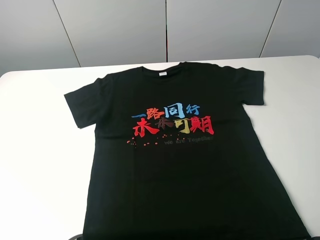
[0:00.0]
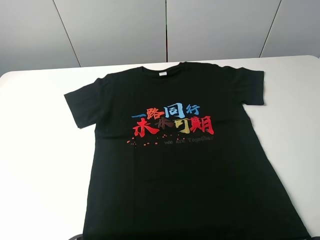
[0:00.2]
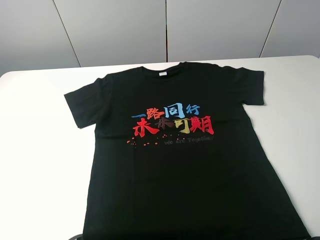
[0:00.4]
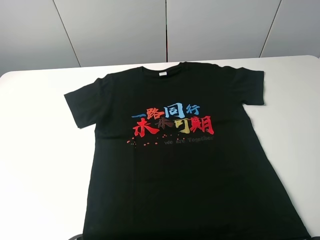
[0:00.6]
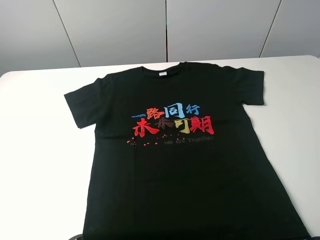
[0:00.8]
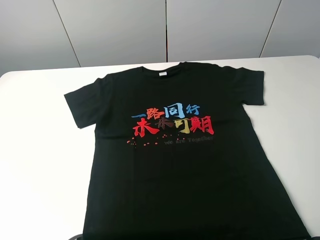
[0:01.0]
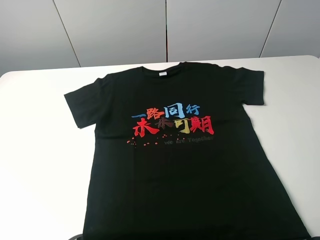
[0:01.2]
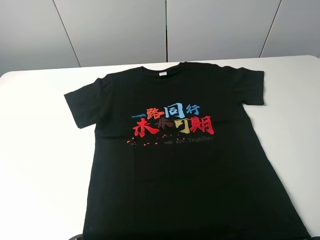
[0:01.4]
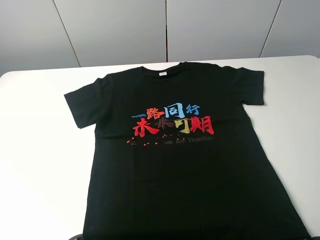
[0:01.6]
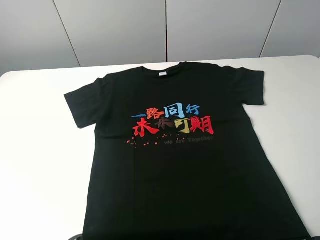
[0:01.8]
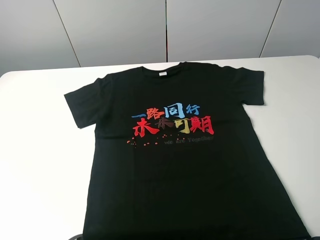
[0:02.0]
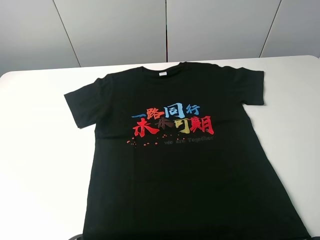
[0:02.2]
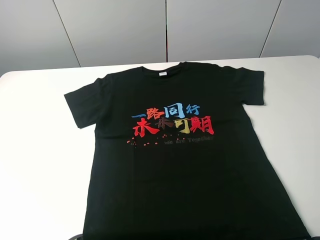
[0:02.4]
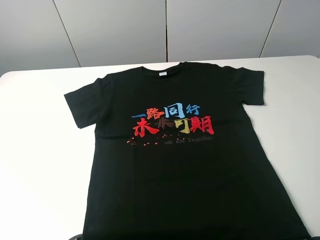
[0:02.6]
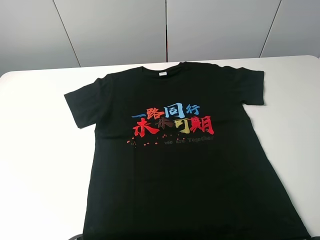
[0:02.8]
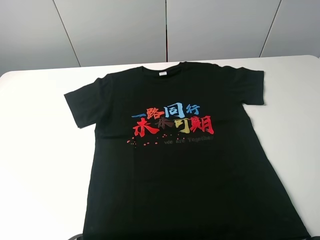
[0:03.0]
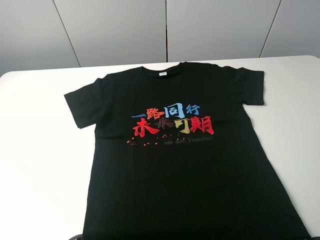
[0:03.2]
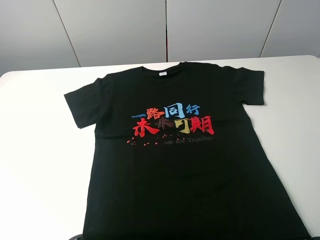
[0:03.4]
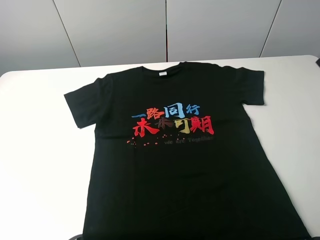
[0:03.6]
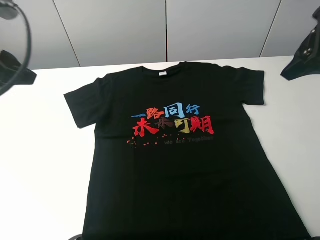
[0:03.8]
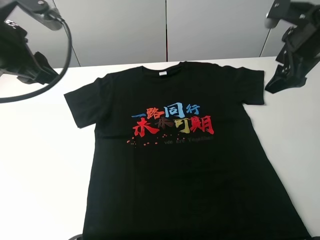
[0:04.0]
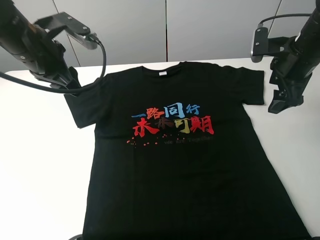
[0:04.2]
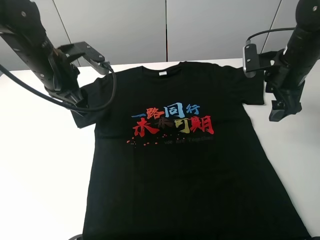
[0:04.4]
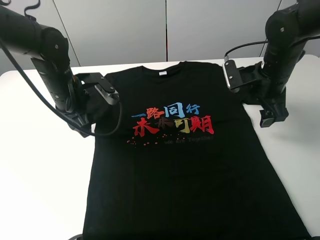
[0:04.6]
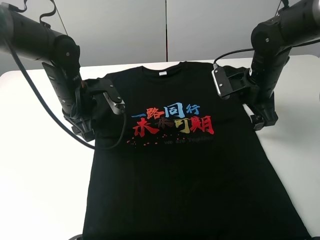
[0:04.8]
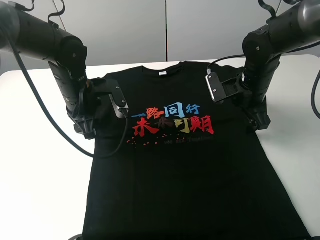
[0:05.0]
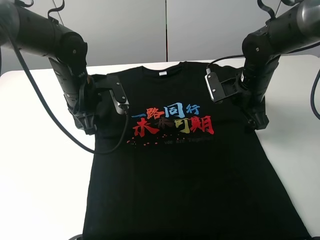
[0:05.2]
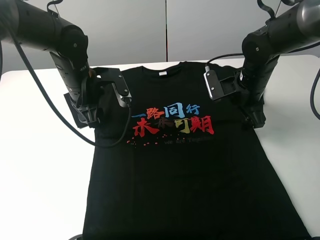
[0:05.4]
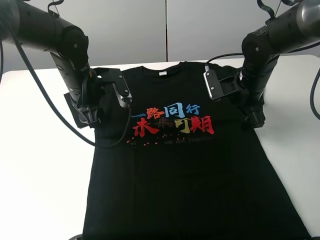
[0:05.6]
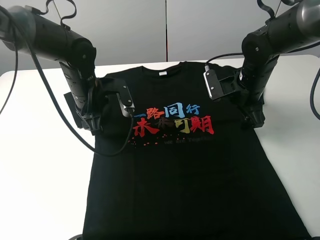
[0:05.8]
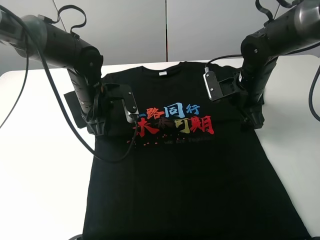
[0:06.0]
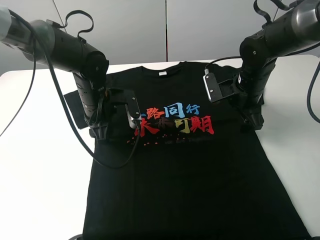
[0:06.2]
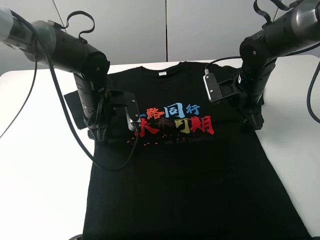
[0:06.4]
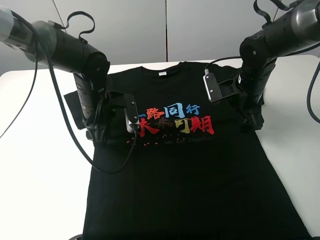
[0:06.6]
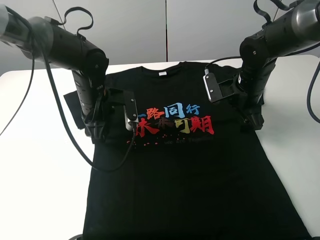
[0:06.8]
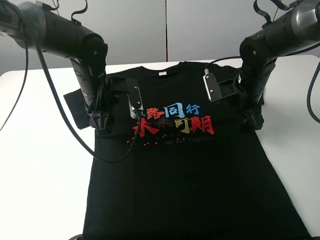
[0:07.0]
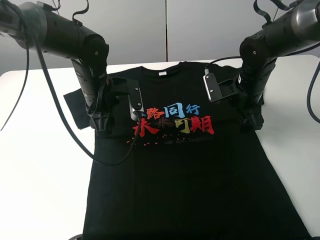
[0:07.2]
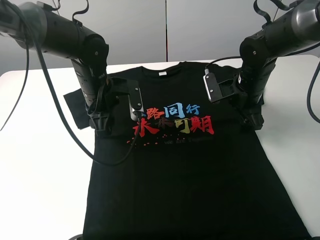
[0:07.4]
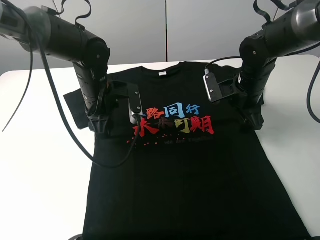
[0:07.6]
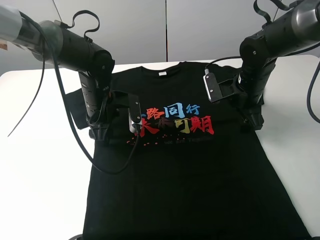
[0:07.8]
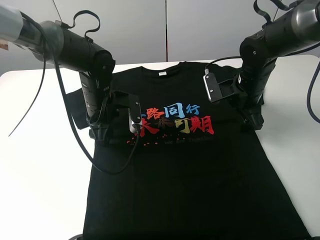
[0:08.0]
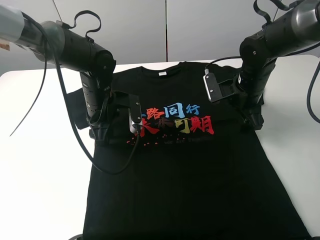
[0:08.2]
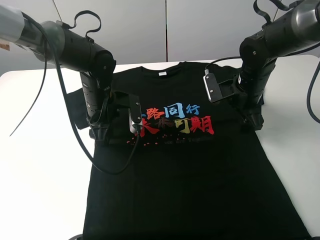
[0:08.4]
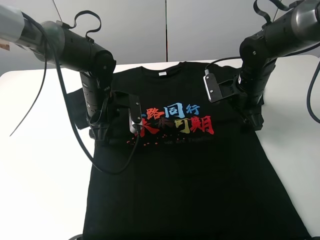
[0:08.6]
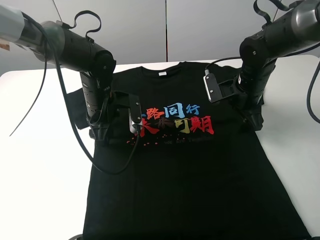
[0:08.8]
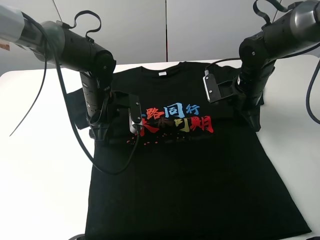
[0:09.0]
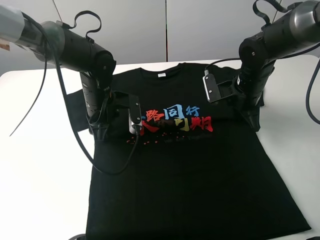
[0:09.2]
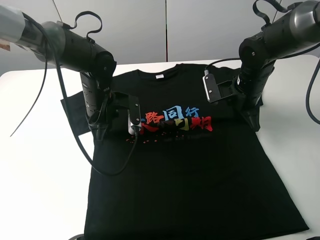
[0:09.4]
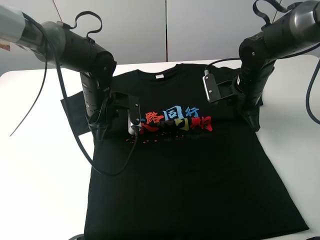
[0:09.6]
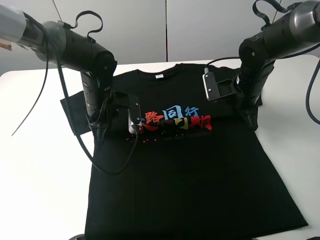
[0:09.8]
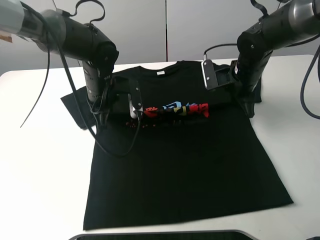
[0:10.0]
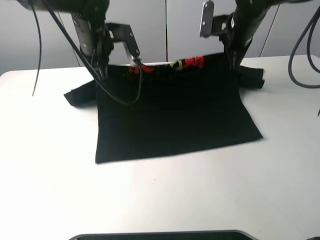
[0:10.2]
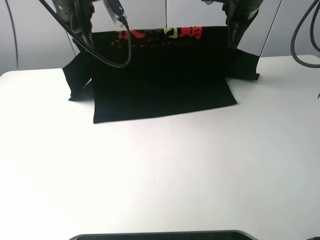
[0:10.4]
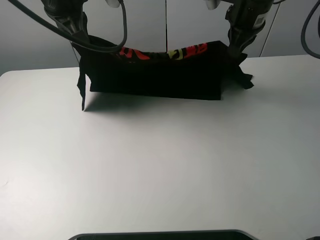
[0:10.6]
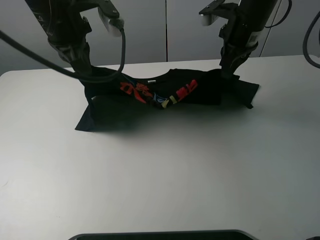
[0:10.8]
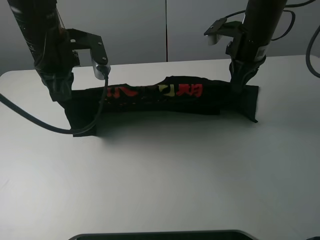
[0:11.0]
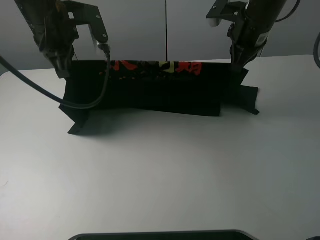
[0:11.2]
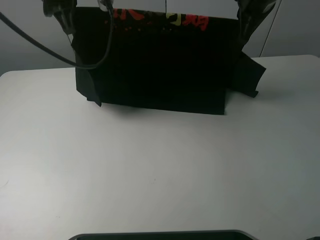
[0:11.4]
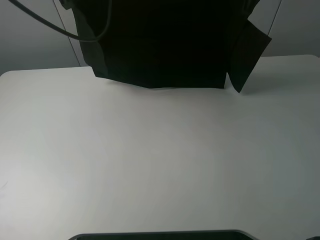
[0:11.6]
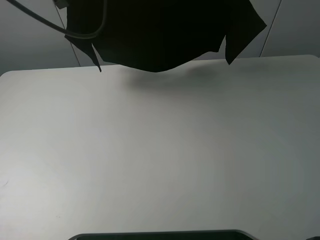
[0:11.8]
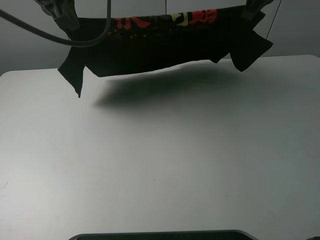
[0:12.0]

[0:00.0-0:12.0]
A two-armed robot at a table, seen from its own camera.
Task of the whole recording: fold the clothes on the table.
Step, 0:00.0 to 0:09.4: Lift the black T-shirt with the left gripper.
0:00.0 to 0:01.6: Neither gripper changes place.
0:03.0 to 0:04.4: The right gripper goes approximately 35 cm forward and downward; the left gripper moves forward, to the right and downward, about 35 cm.
0:04.4 to 0:06.0: The left gripper is displaced downward and to the right by some 10 cm, while the right gripper travels downward and to the left by approximately 10 cm.
0:06.0 to 0:07.6: The grippers move only a little.
0:07.6 to 0:09.0: The right gripper closes its fingers.
0:09.0 to 0:10.4: The two grippers go some 20 cm upward and forward. The left gripper closes.
0:10.4 to 0:12.0: The right gripper goes some 10 cm upward and backward. Meanwhile the left gripper heads backward and upward, covering roughly 10 cm.

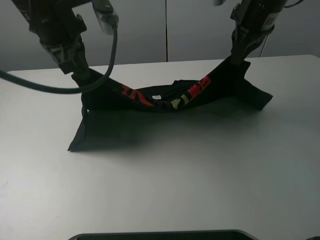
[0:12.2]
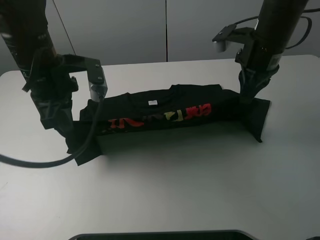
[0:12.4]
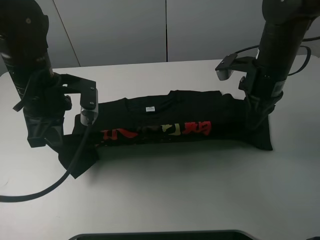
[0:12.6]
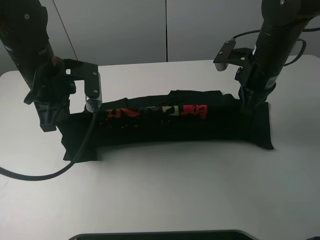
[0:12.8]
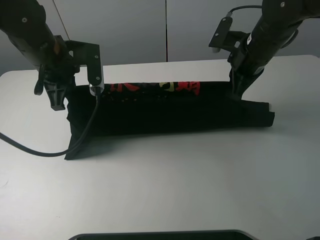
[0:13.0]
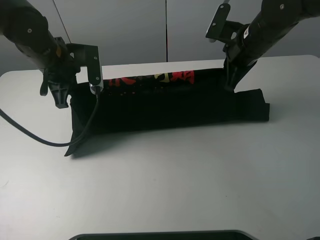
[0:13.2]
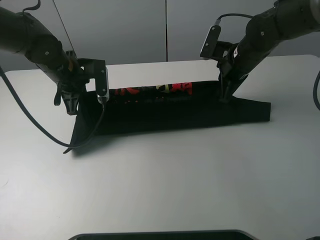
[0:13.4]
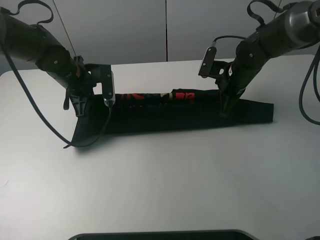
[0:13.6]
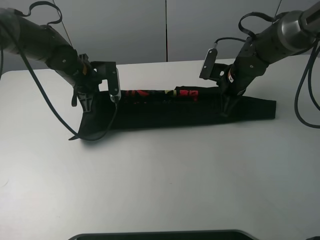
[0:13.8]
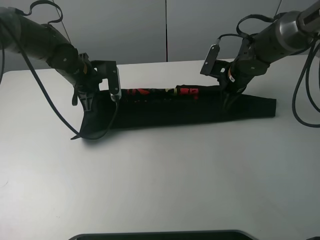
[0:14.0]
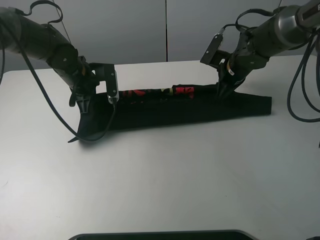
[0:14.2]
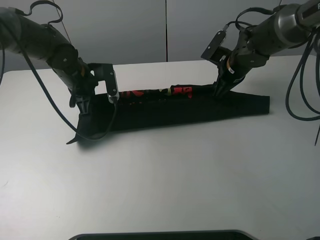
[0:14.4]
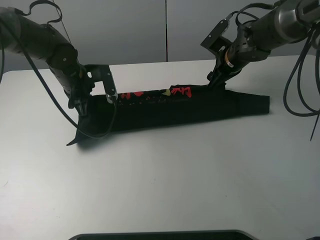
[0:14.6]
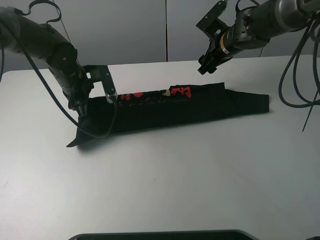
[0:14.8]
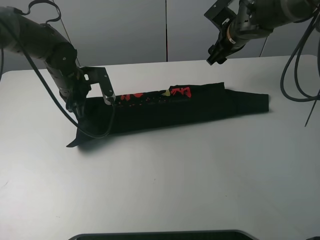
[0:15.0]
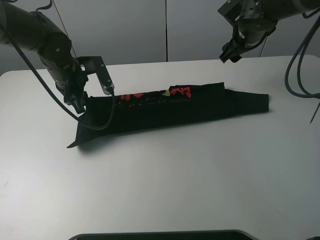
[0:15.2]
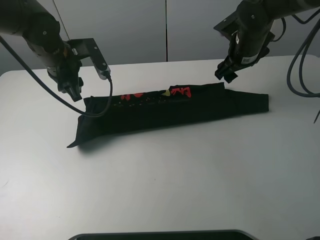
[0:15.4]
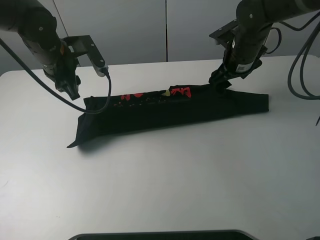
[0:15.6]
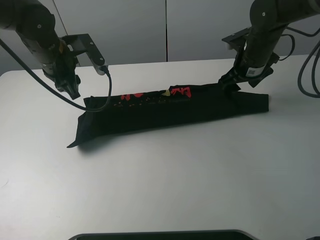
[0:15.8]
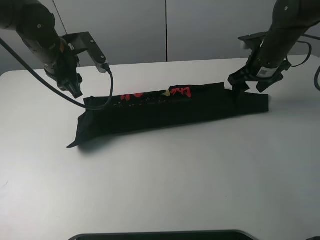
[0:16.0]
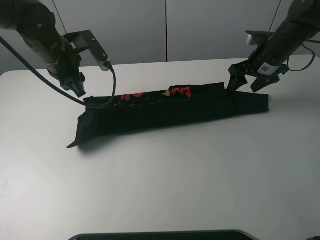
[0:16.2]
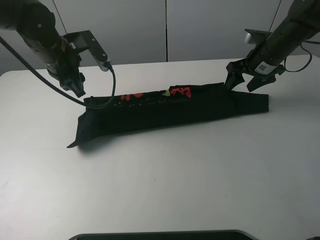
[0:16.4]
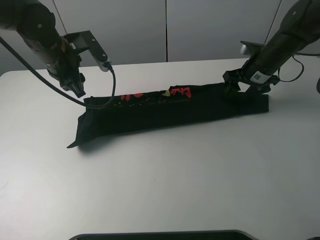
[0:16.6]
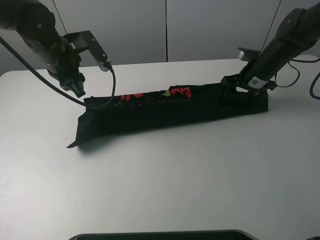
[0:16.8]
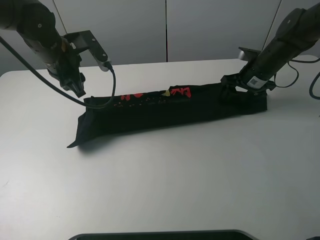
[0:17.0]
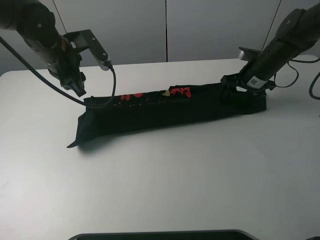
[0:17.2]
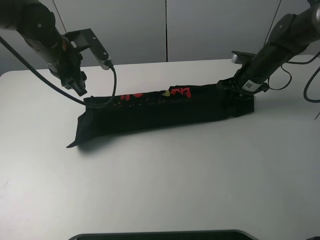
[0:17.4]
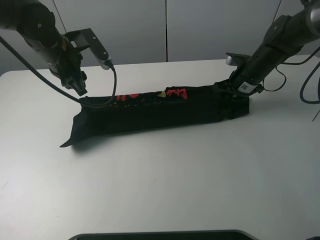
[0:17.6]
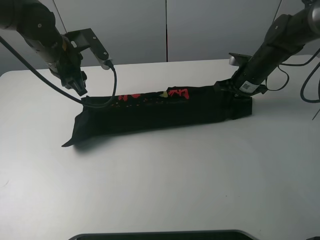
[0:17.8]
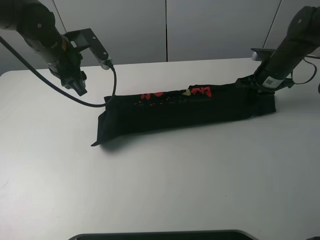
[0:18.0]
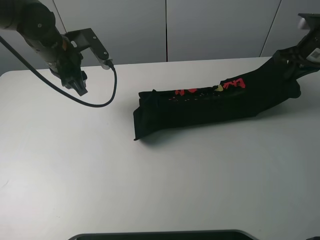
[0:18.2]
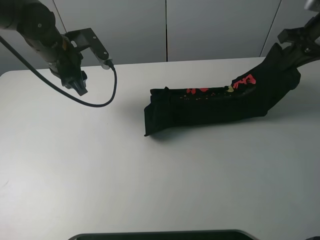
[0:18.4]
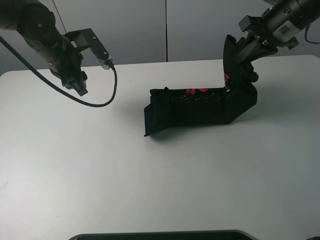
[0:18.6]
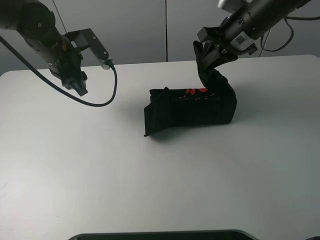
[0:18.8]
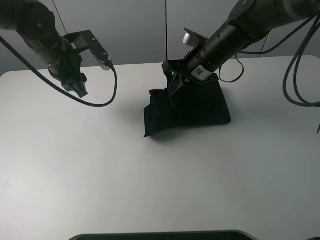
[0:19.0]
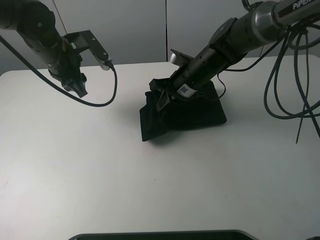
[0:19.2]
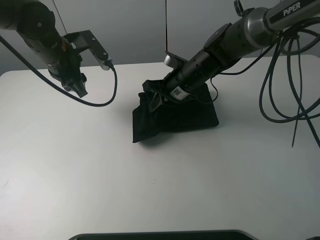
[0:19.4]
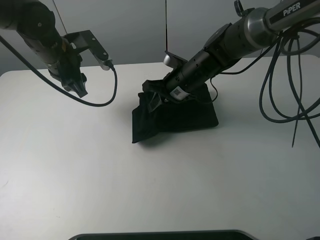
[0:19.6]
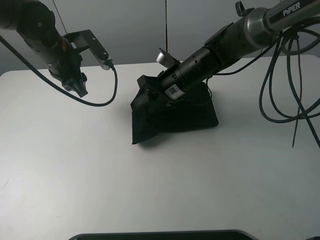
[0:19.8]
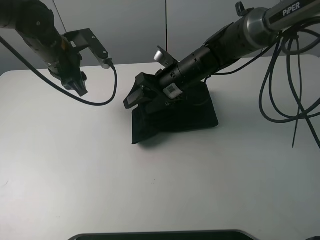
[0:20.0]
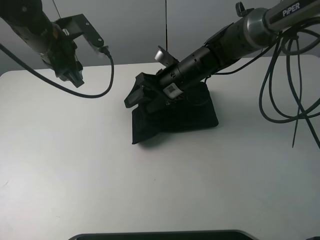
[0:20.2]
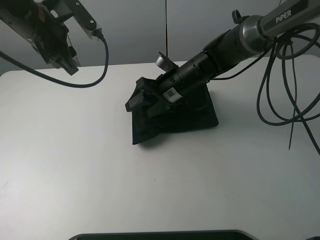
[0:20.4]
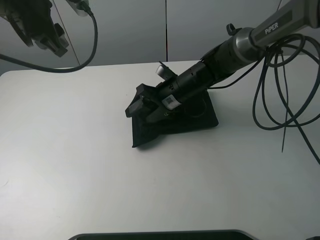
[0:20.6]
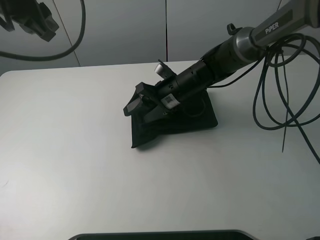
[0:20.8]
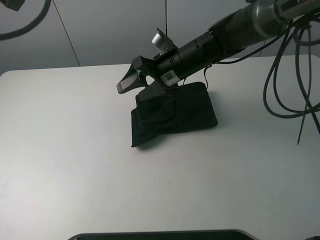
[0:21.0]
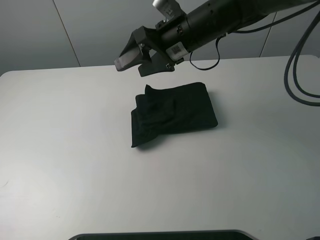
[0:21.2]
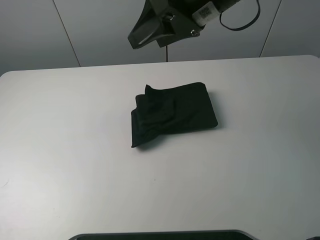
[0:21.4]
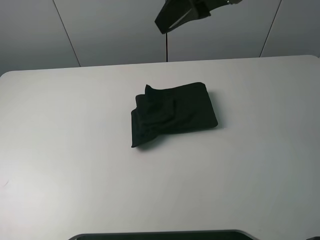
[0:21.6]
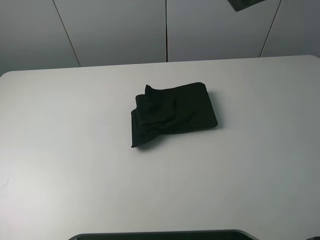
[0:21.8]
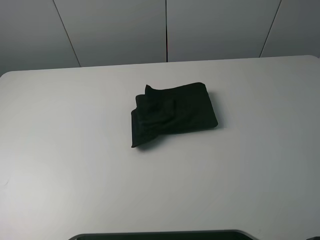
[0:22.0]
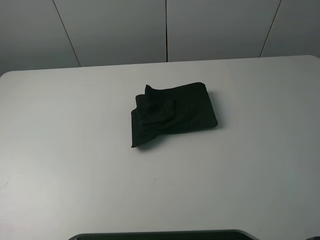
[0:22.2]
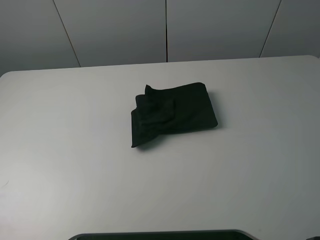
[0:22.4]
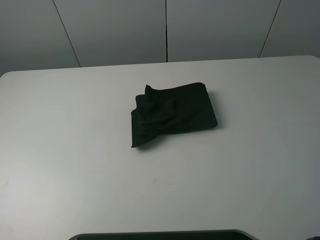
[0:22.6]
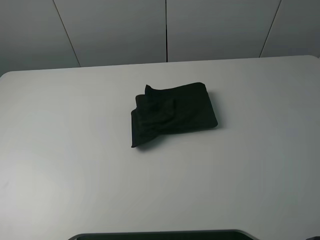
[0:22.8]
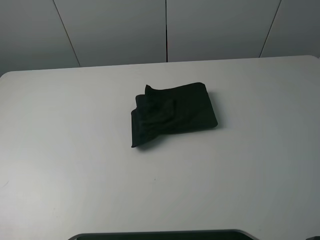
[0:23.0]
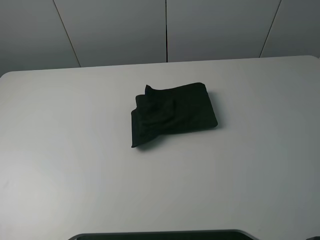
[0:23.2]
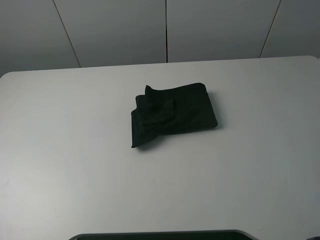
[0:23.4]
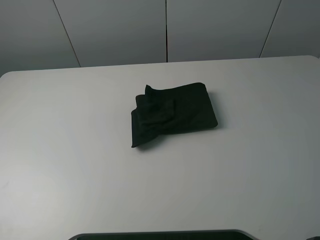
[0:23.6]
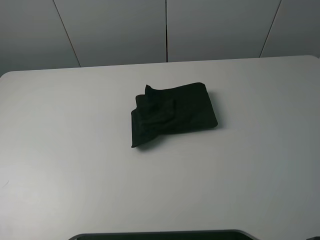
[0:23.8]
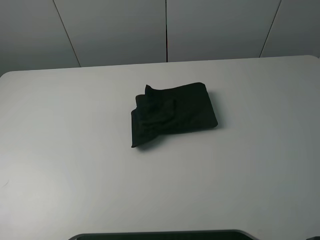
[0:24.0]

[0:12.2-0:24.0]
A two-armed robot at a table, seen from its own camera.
Task of the whole recording: fold the clothes on the table.
Step, 0:12.2 to 0:15.2: Fold the black T-shirt downward with the left gripper.
Step, 0:15.4 to 0:17.6: Fold the black T-shirt downward with the right gripper.
Step, 0:17.8 to 0:20.0: Grasp the black T-shirt with the right gripper.
0:12.2 to 0:13.6: The left gripper moves downward and forward, approximately 15 cm; the right gripper travels downward by some 15 cm.
0:13.6 to 0:15.2: The left gripper opens. Meanwhile the right gripper heads upward and forward, covering approximately 10 cm, and opens.
0:15.2 to 0:16.6: The right gripper is displaced downward by roughly 5 cm.
0:16.6 to 0:18.2: The right gripper moves to the right and upward, about 15 cm, and closes up.
0:18.2 to 0:19.6: The right gripper heads to the left, covering approximately 30 cm.
0:19.6 to 0:21.0: The right gripper goes about 5 cm upward, and opens its fingers. Meanwhile the left gripper shifts roughly 20 cm upward and backward.
0:21.0 to 0:22.6: The left gripper shifts some 30 cm backward and to the left; the right gripper travels backward, to the right and upward by roughly 60 cm.
